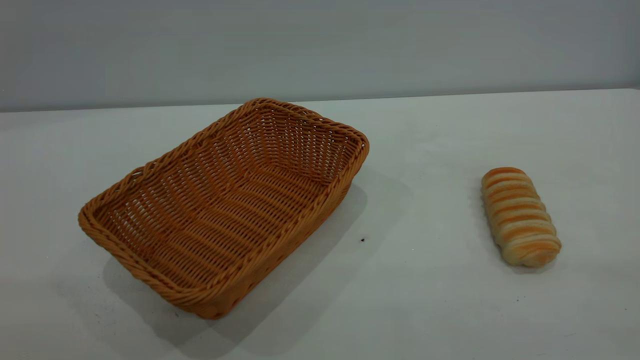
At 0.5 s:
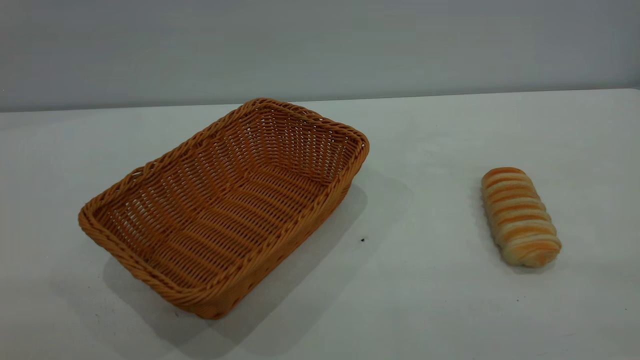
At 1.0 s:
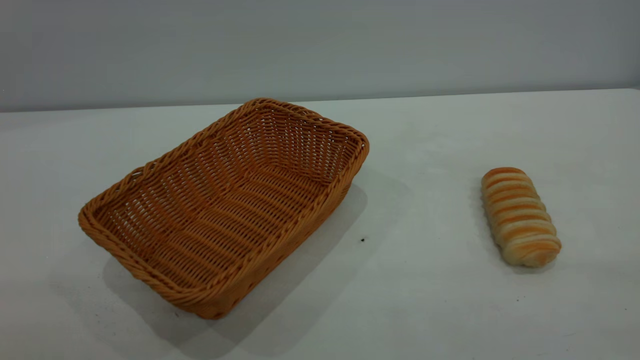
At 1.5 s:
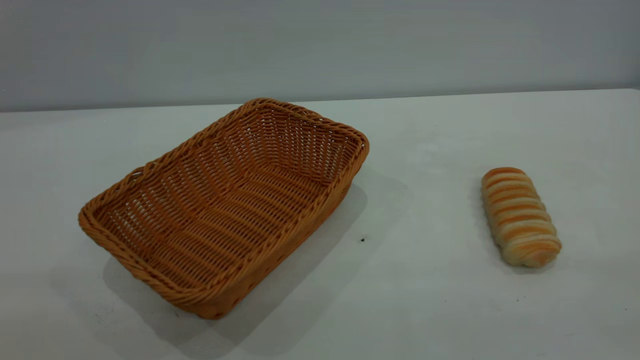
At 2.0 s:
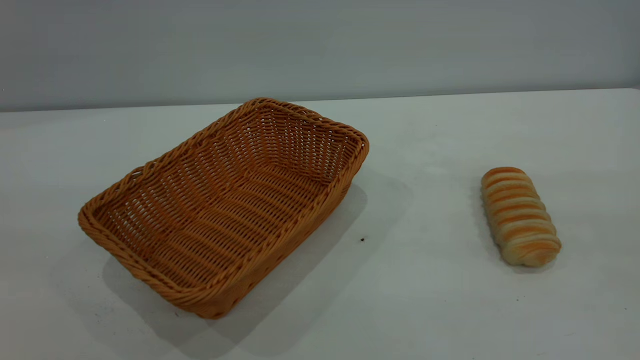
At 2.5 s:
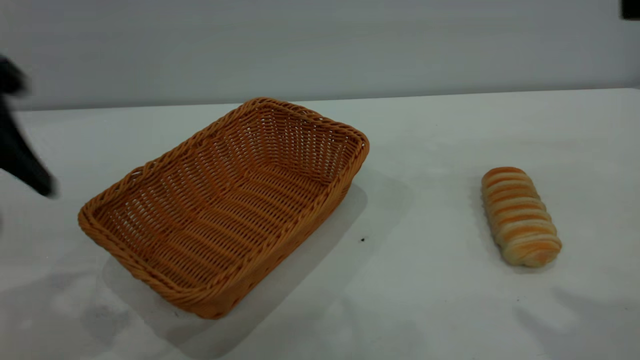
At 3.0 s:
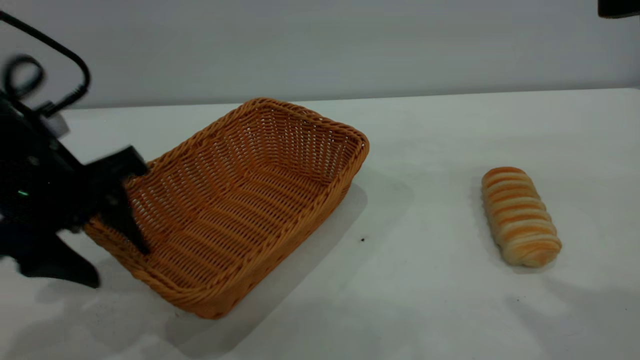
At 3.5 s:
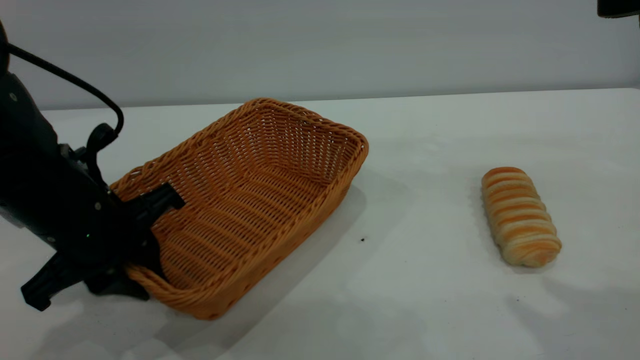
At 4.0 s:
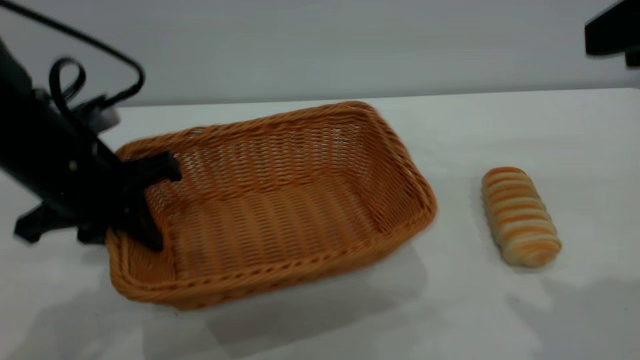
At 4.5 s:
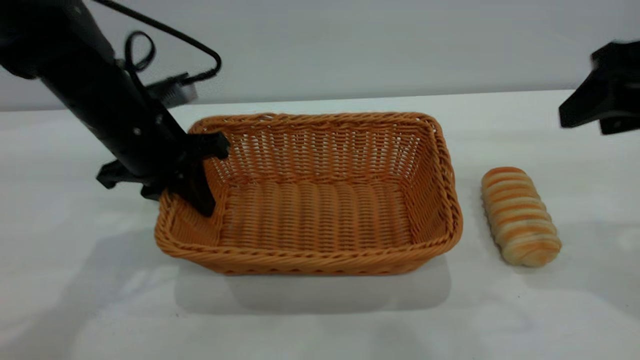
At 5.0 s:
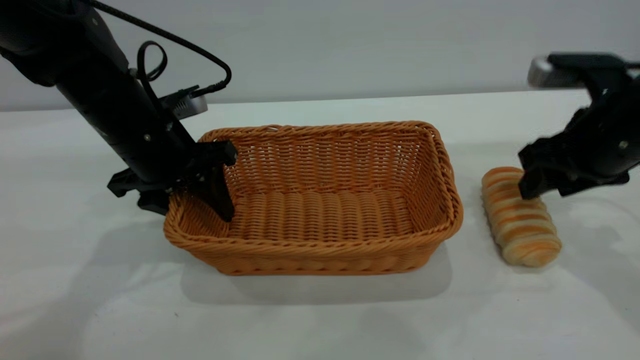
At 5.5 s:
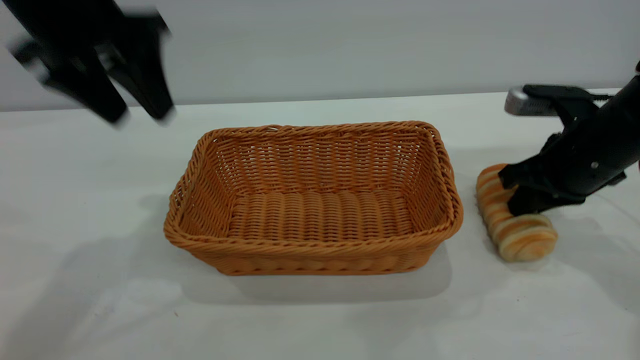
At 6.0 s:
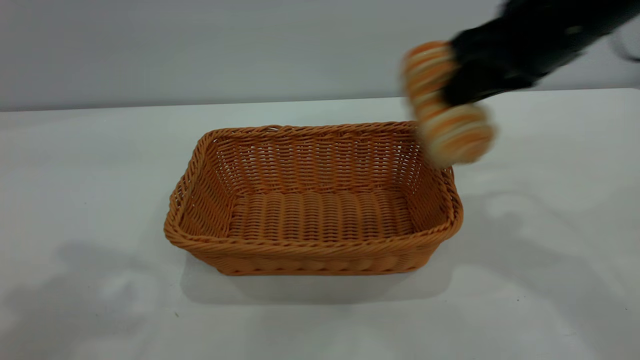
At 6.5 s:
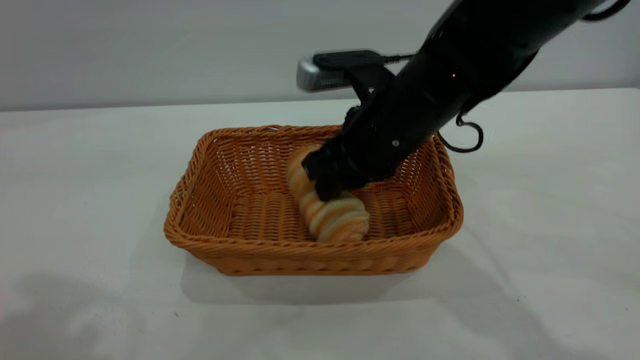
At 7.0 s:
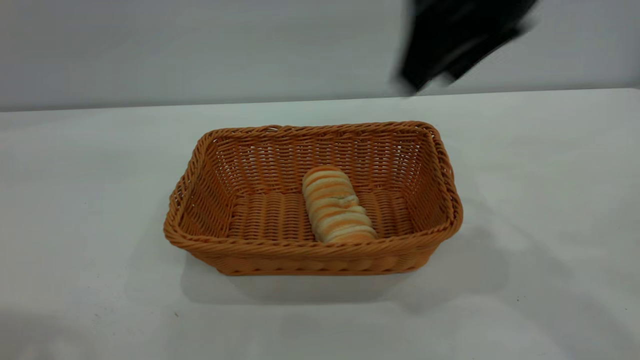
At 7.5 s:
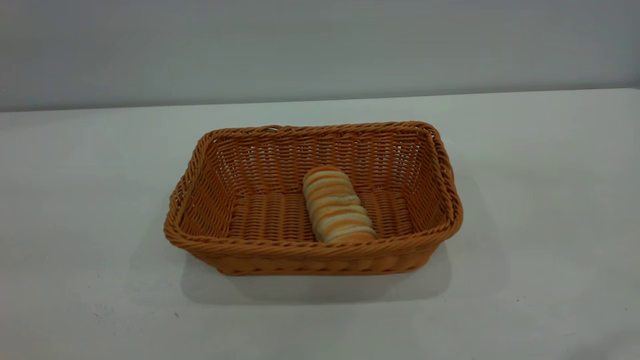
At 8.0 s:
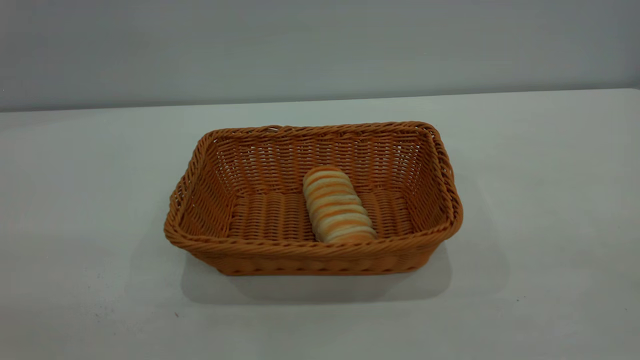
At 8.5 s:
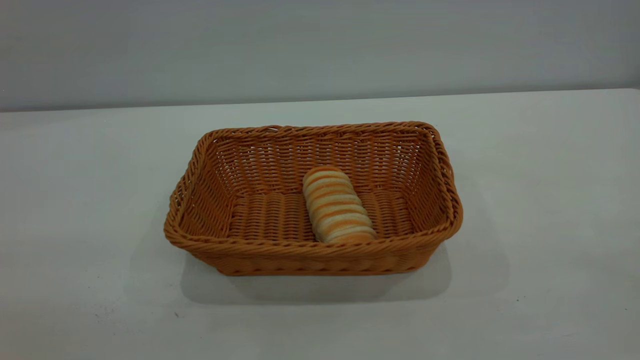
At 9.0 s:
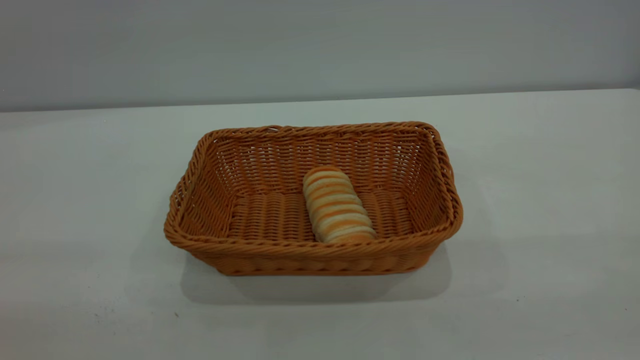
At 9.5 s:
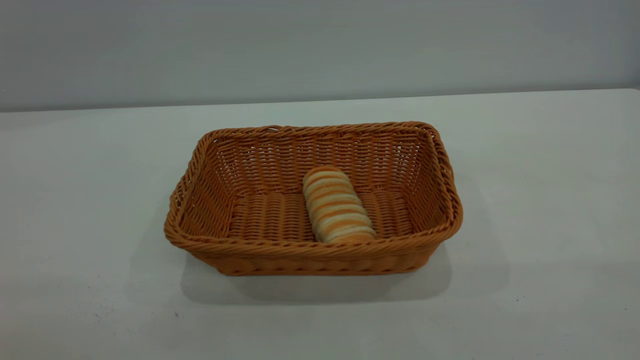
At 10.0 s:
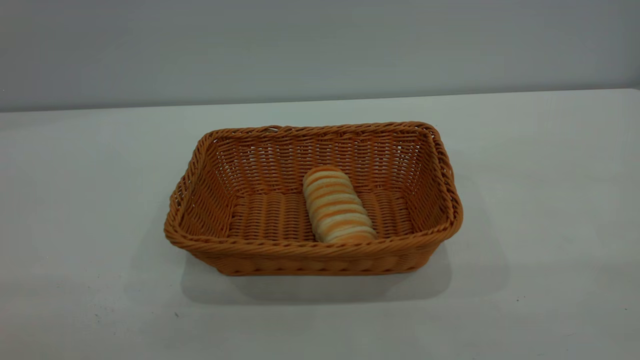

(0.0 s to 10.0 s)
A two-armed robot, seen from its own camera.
Task of the whole recording: One hand grasps the yellow basket and places it in the middle of the table, while the other hand picks up the long bread and puts it into the yellow basket.
Step, 0.0 s - 5.0 s: Move the basket to the center of view.
Step, 6.0 s - 6.5 s: place the bread into the basket.
2.0 s - 4.0 s: The left gripper is displaced downward and forward by approximately 25 cm, and closes, while the right gripper is displaced forward and downward by roughly 15 cm.
4.0 s - 6.0 s: The right gripper shifts about 15 cm forward and to the left, goes downward and returns, some 20 cm each way, and closes. The left gripper travels upward by approximately 25 cm, and opens up.
6.0 s - 8.0 s: The left gripper heads backward and downward, covering roughly 20 cm, while the right gripper moves backward, approximately 25 cm, and opens its fingers.

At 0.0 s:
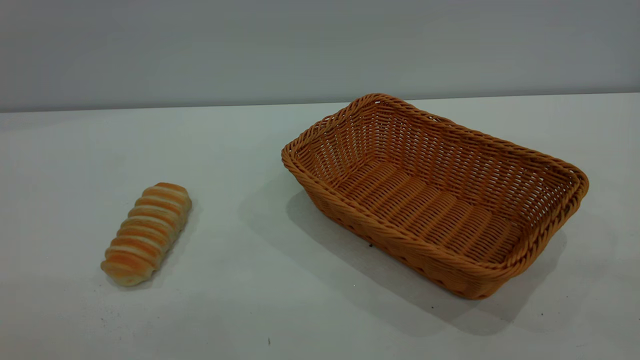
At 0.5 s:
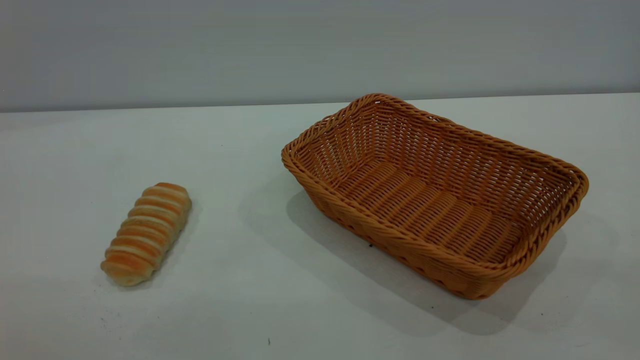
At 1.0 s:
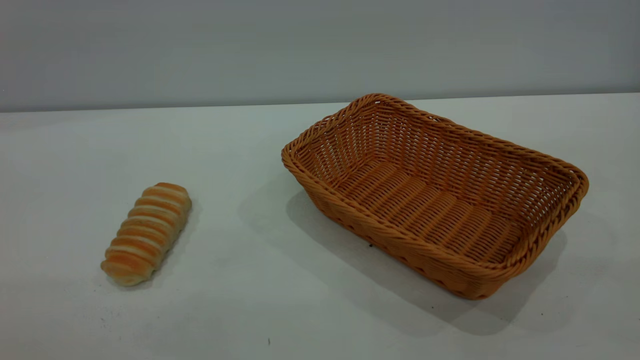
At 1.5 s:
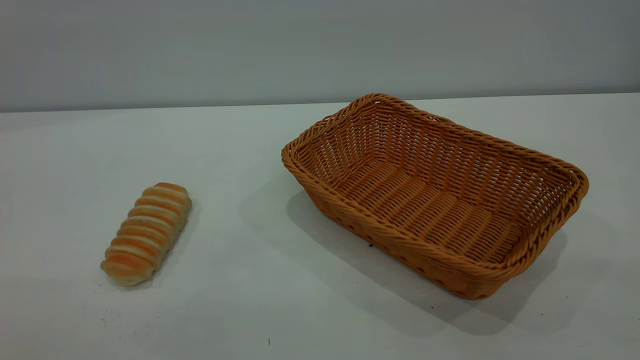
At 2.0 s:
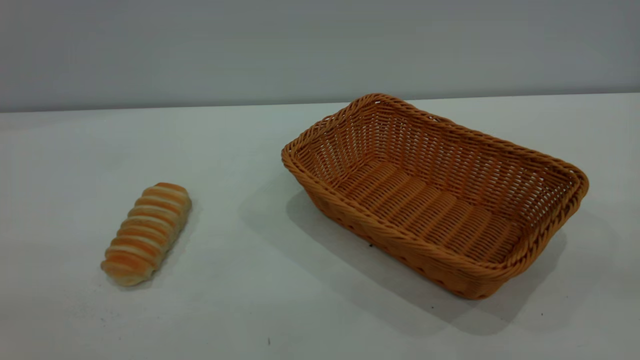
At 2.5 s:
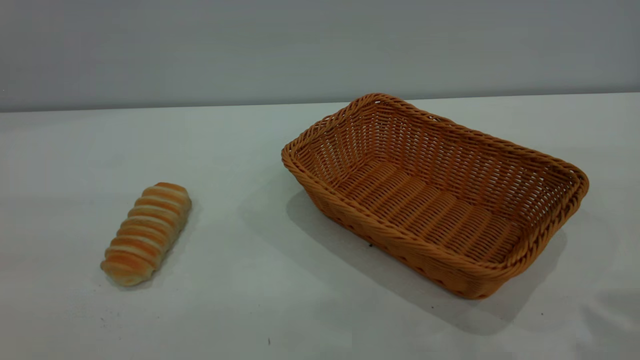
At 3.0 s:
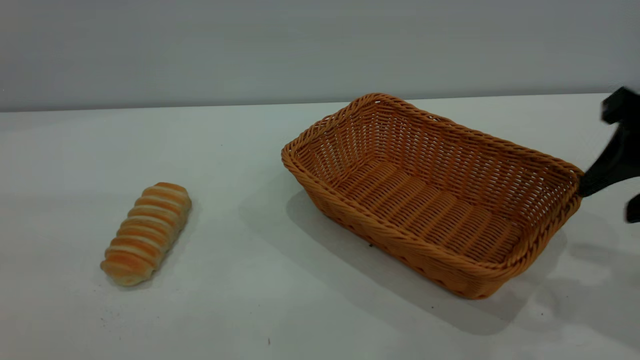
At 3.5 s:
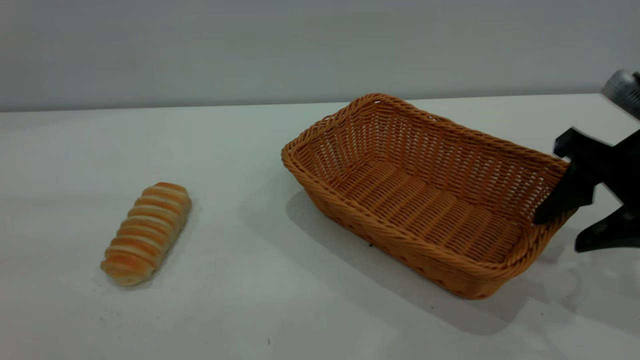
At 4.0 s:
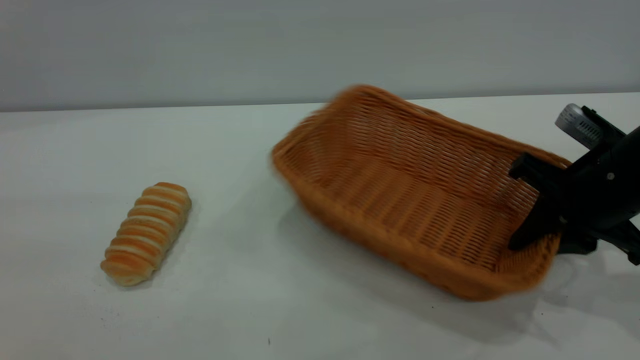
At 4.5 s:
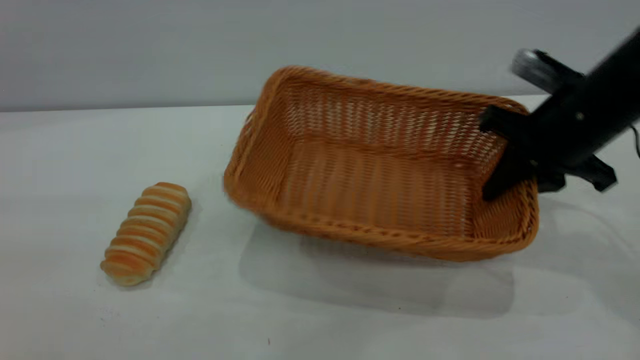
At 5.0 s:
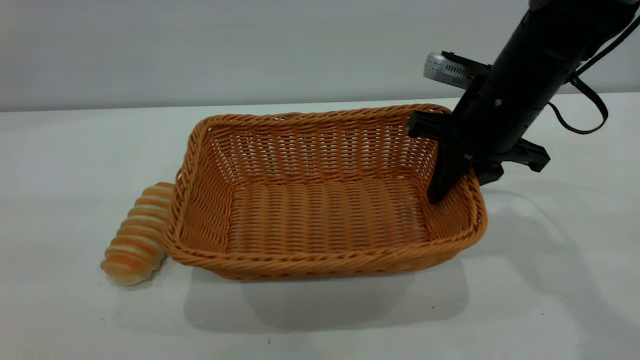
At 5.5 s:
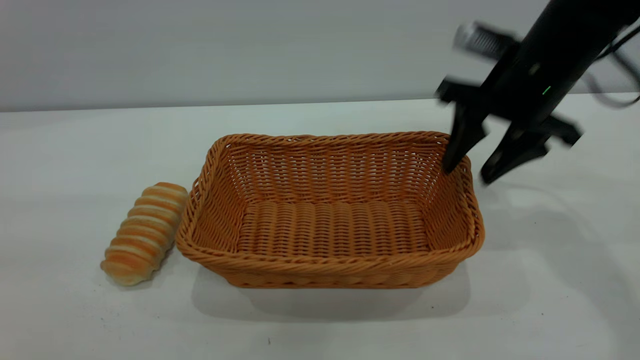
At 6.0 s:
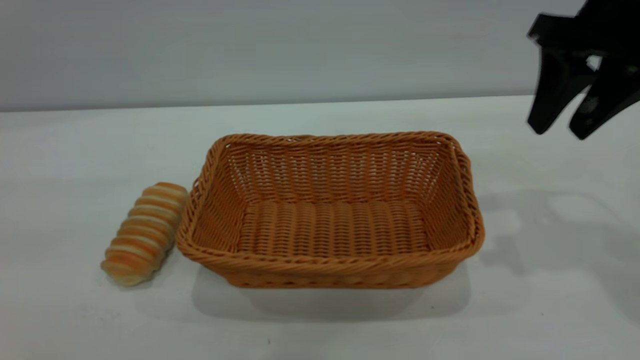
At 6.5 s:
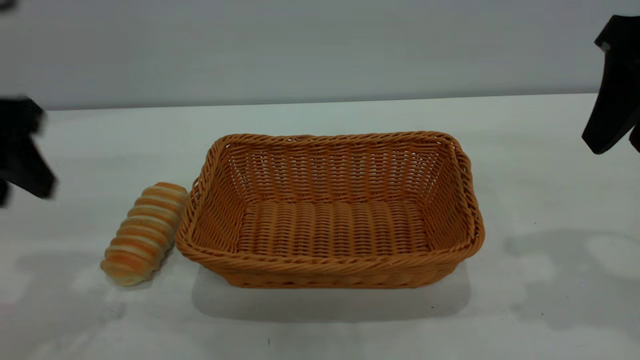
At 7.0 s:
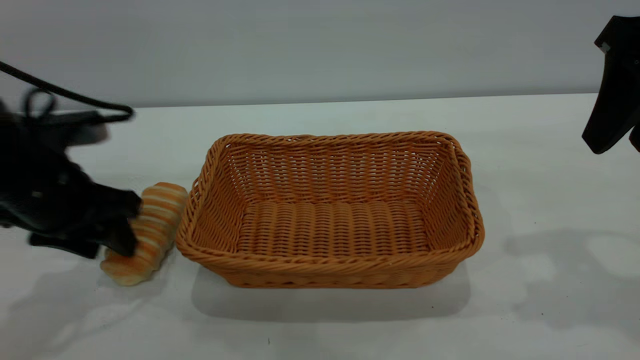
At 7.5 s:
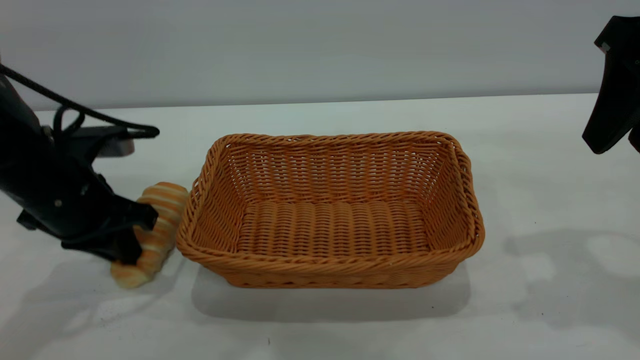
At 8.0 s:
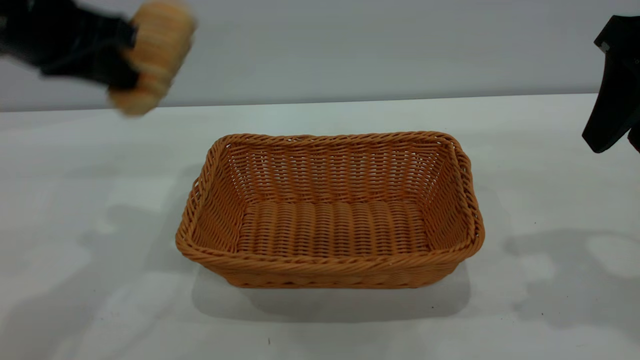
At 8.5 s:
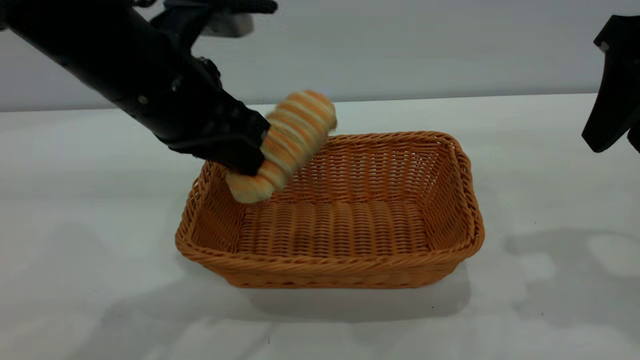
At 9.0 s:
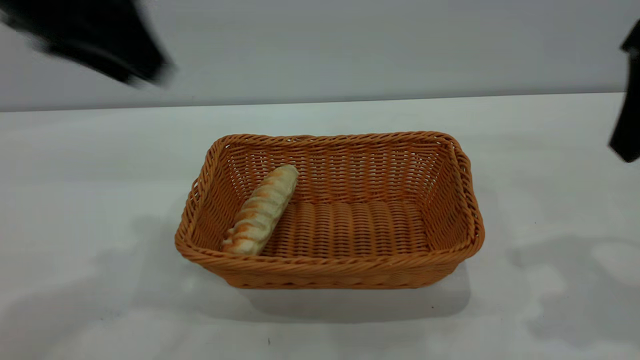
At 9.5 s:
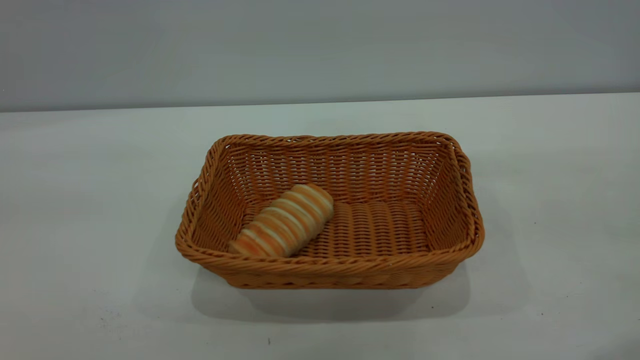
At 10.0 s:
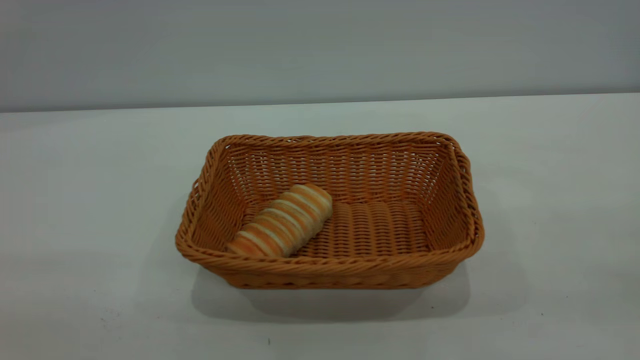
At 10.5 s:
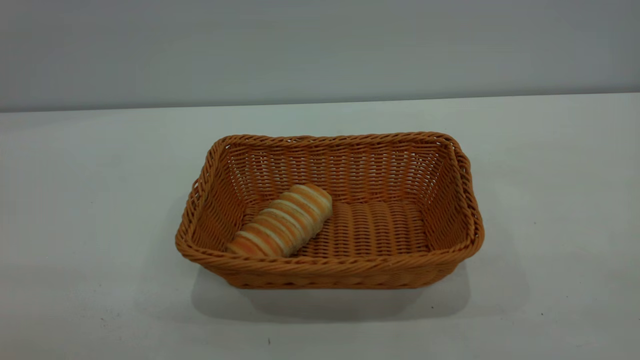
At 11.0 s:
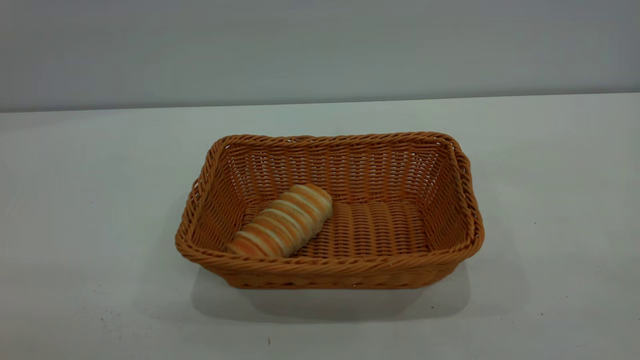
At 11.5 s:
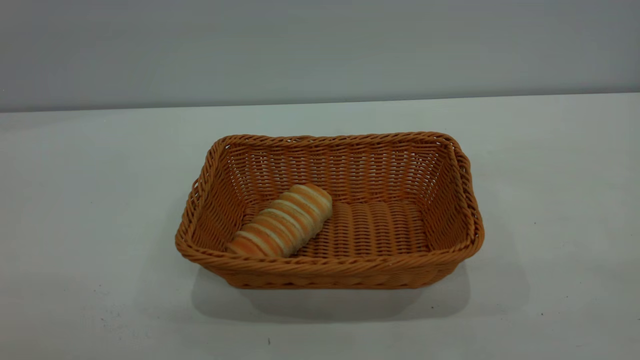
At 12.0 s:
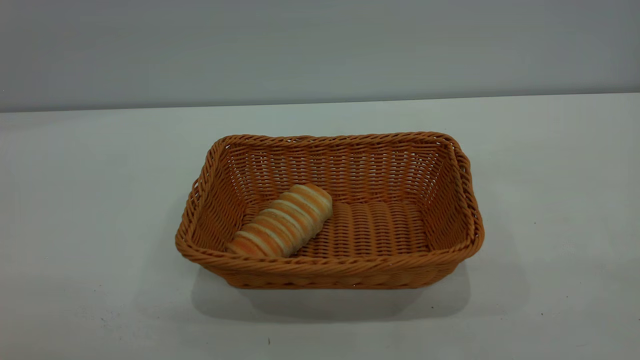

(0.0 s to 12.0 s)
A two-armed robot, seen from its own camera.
Task of the whole recording: One hand grasps the yellow basket and places it in the middle of the table, while the other hand picks up the long bread and puts it into the yellow basket.
Step, 0.0 s - 5.5 s: Move the basket to the center of view.
Step, 8.0 s - 8.5 s: place the bread into the basket.
2.0 s - 4.0 s: The right gripper shifts about 35 cm forward and downward, and closes. The left gripper shifts approximately 5 cm forward.
4.0 s - 6.0 s: The left gripper shifts about 5 cm forward. Meanwhile the right gripper travels upward by roughly 15 cm, and opens up.
6.0 s - 8.0 s: The right gripper heads backward, covering some 5 cm; the left gripper shifts approximately 20 cm forward and to the right, moves approximately 25 cm downward and comes back, and closes its fingers.
8.0 s - 10.0 s: Both grippers travel together backward, about 30 cm. The left gripper opens its fingers.
